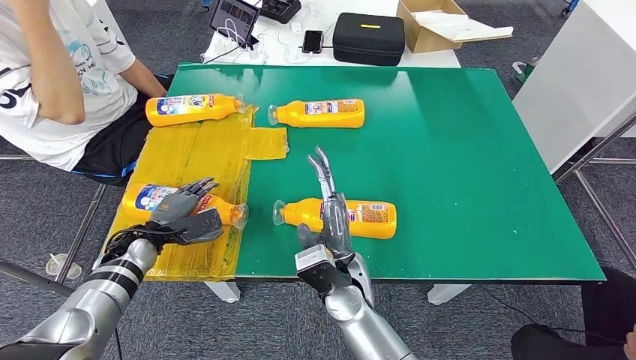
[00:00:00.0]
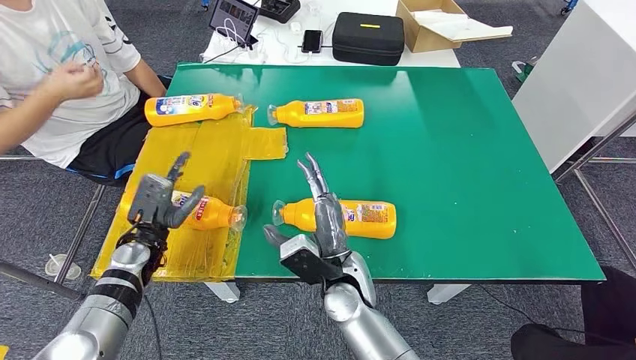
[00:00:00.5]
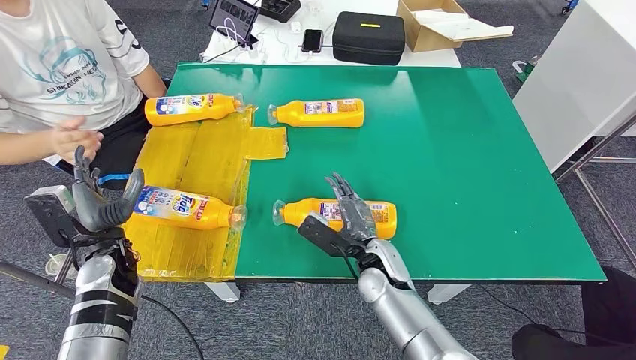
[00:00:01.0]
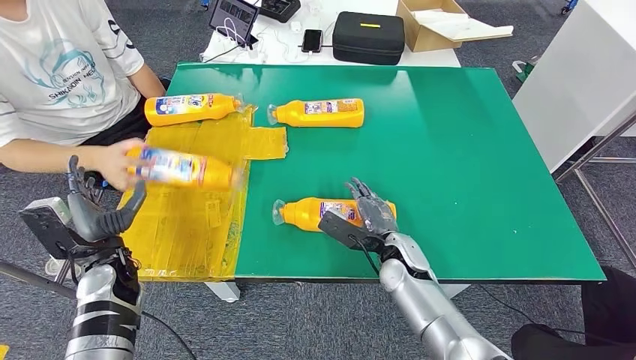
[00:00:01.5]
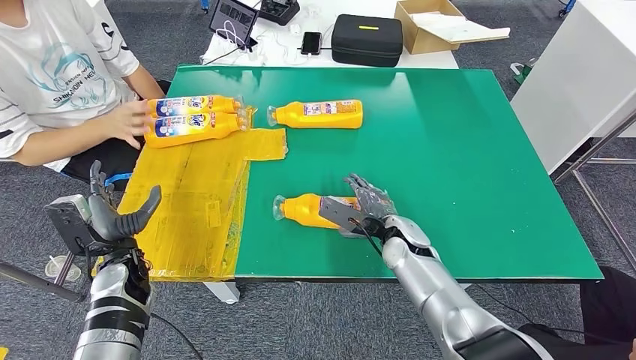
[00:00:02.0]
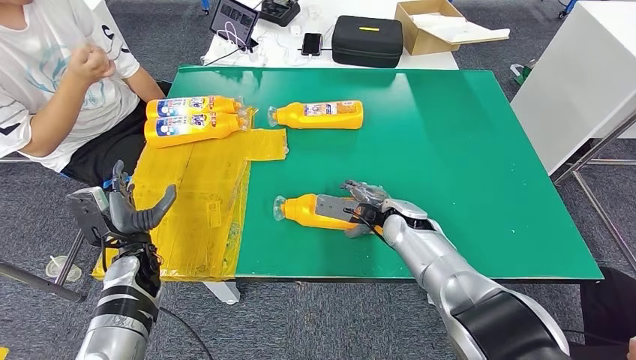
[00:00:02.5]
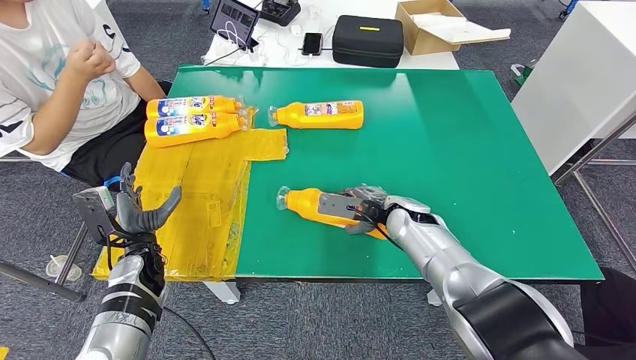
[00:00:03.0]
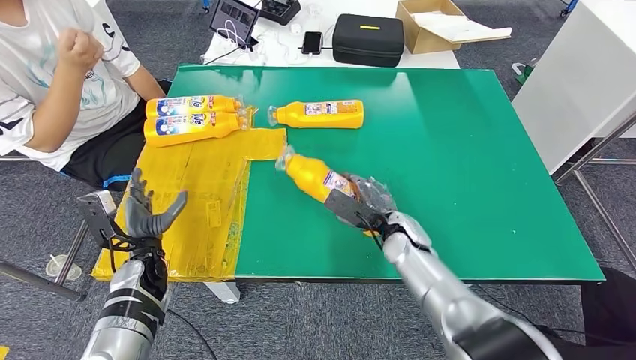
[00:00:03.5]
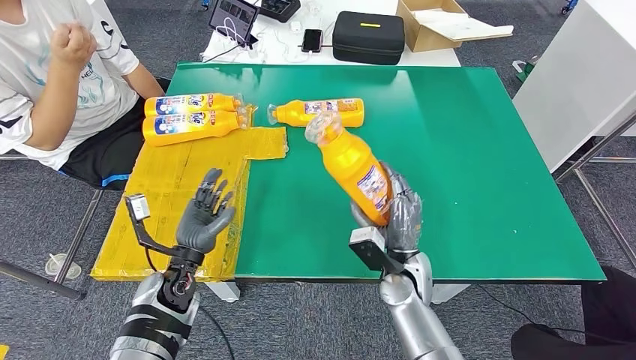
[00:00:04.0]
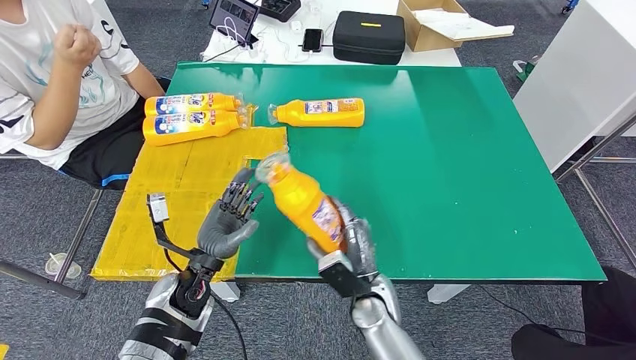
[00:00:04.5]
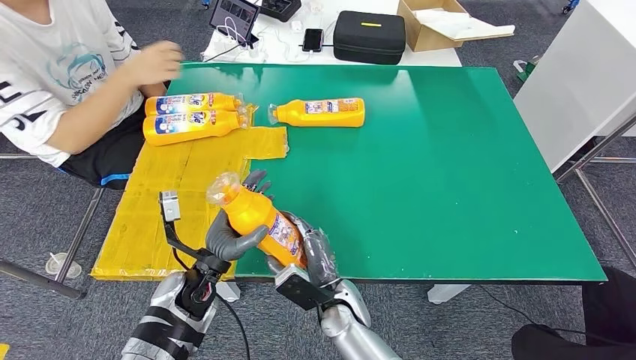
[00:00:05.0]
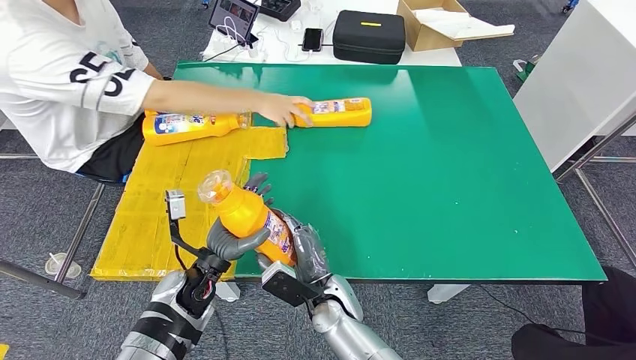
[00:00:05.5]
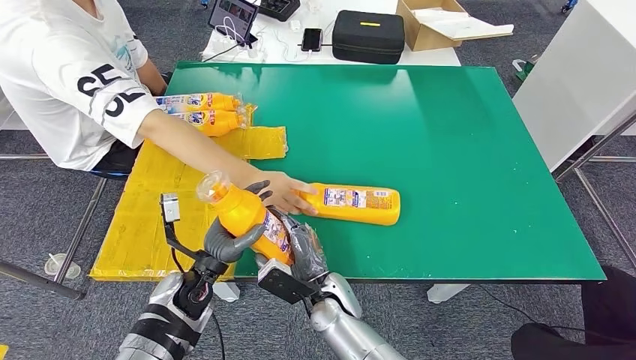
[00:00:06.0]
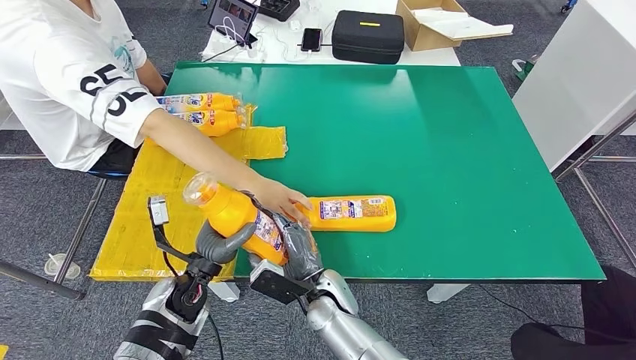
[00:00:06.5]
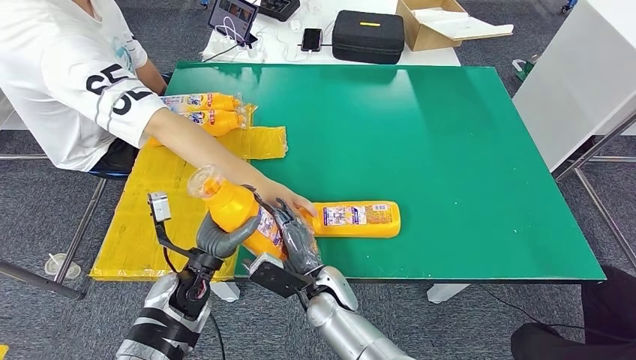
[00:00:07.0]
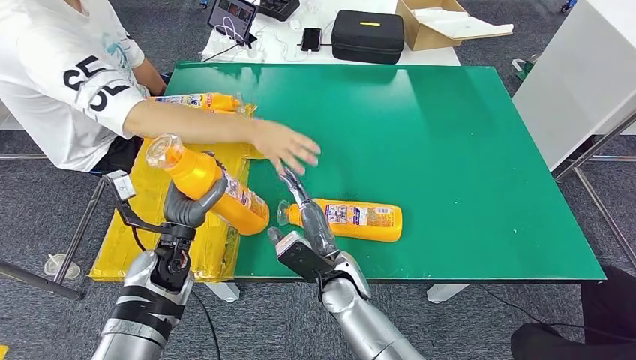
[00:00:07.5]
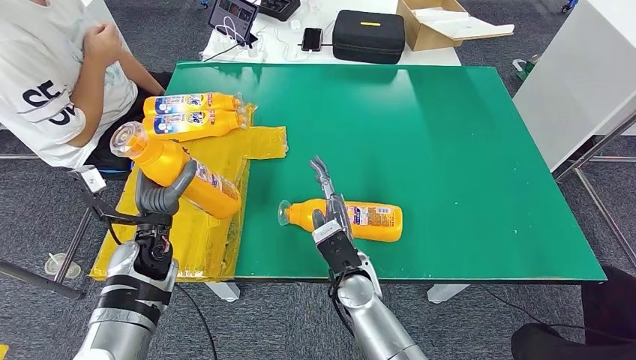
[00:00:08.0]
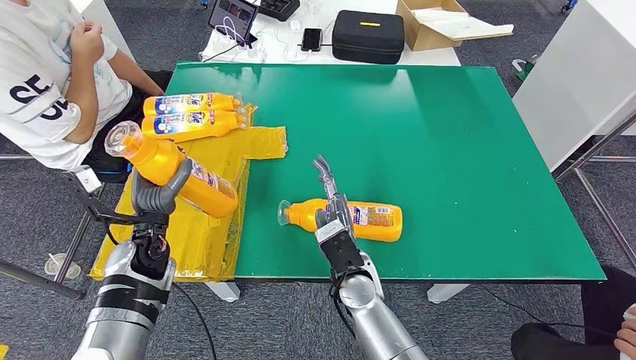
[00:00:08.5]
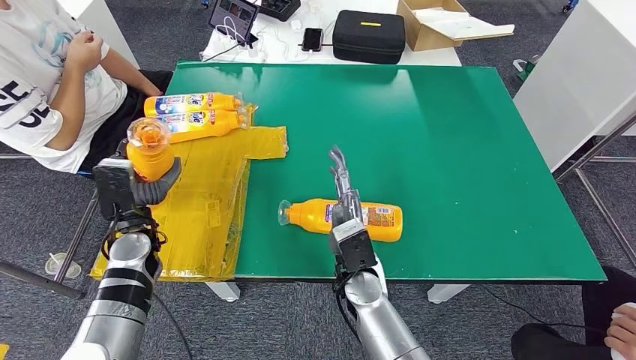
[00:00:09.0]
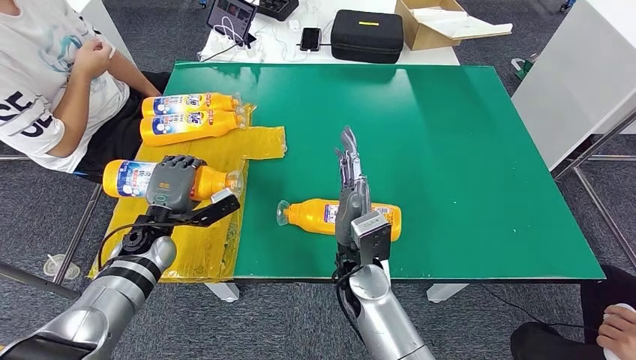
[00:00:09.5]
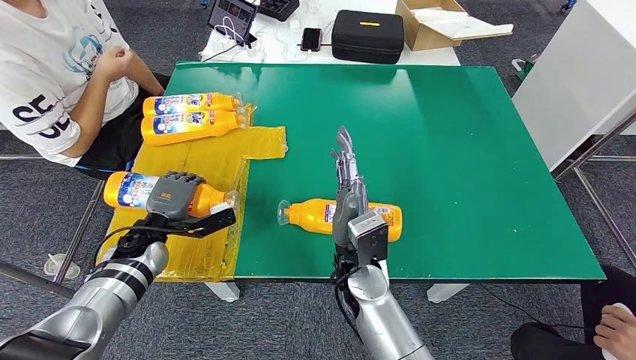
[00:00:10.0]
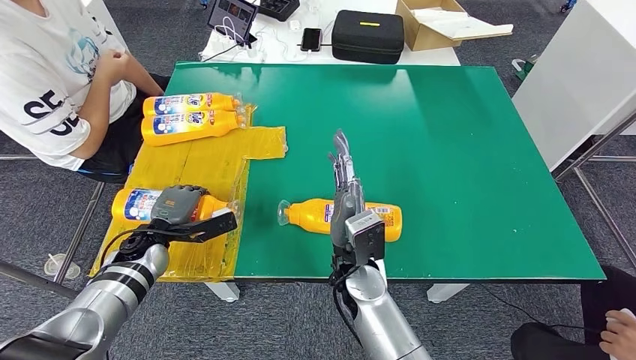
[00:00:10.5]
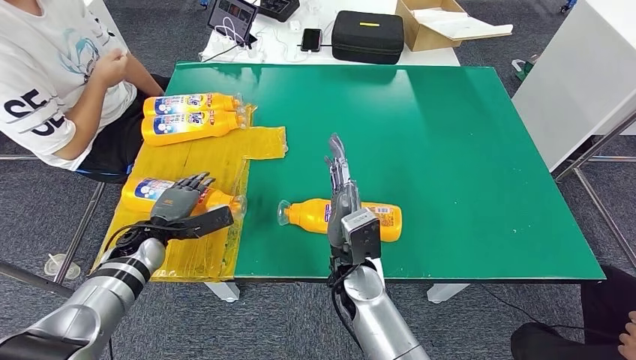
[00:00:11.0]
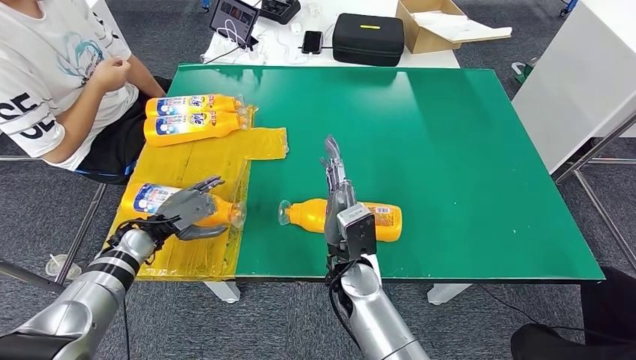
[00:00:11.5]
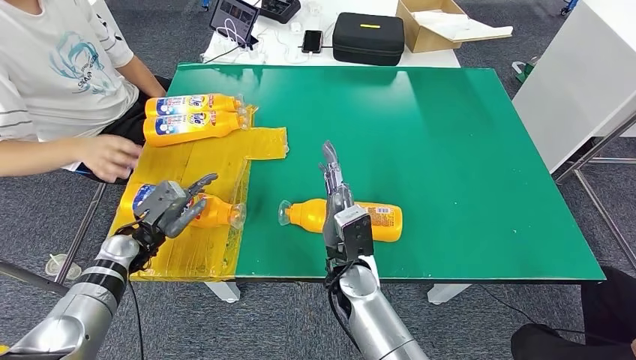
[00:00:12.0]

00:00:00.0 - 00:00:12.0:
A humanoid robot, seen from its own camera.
Step, 00:00:00.0 - 00:00:05.0: Pick up the fast-moving consumer goods bottle from the table.
Step, 00:00:05.5 - 00:00:09.5: Flip the fast-moving consumer goods bottle to the front side.
00:00:08.0 - 00:00:10.0: The left hand goes approximately 5 cm to the left.

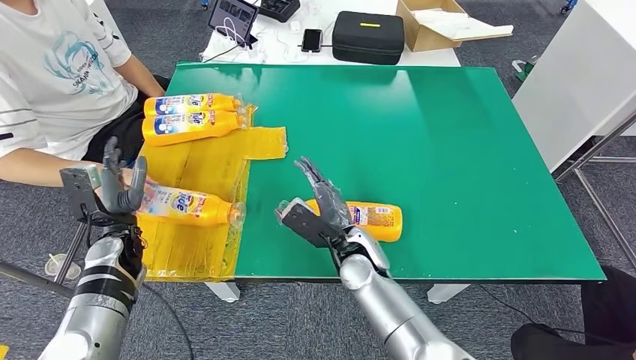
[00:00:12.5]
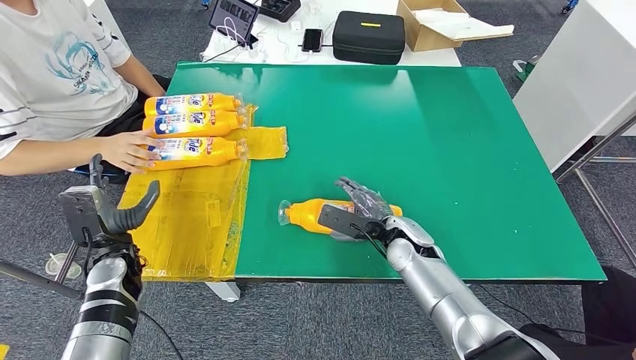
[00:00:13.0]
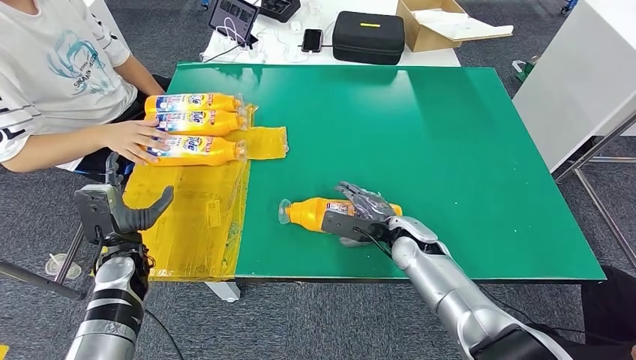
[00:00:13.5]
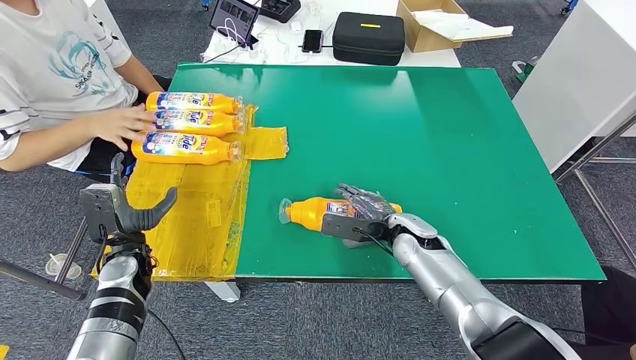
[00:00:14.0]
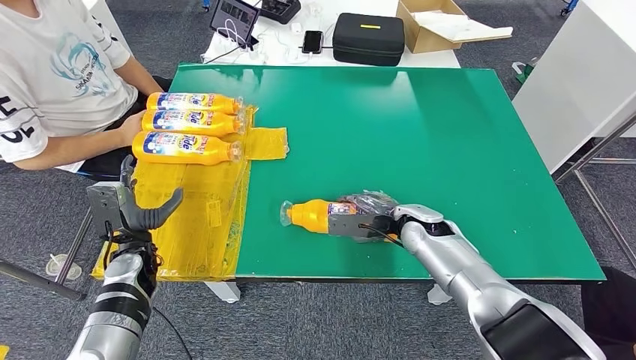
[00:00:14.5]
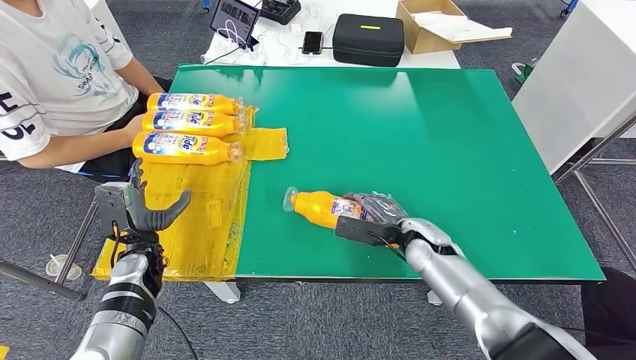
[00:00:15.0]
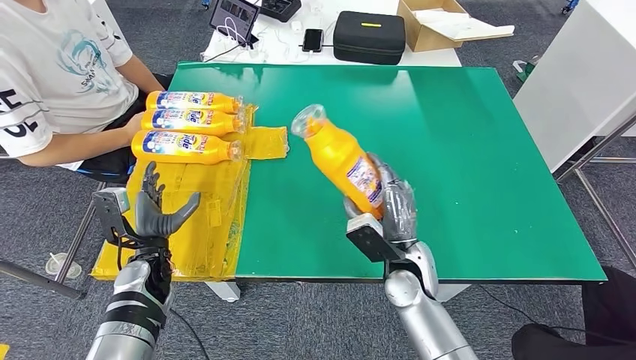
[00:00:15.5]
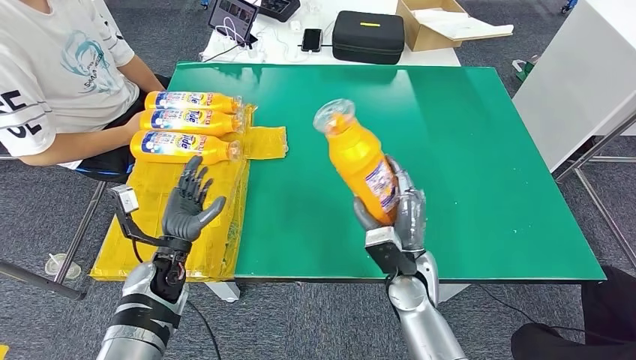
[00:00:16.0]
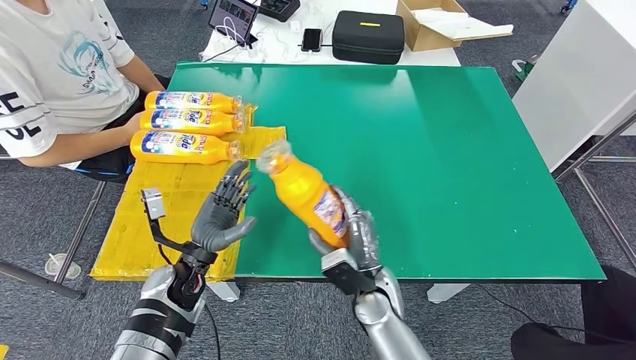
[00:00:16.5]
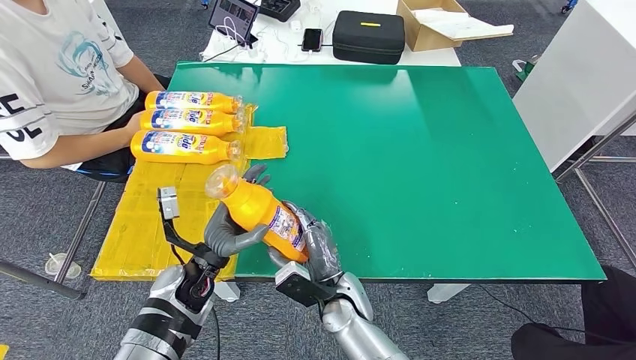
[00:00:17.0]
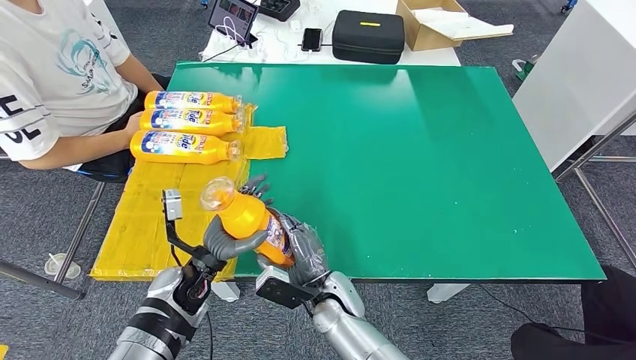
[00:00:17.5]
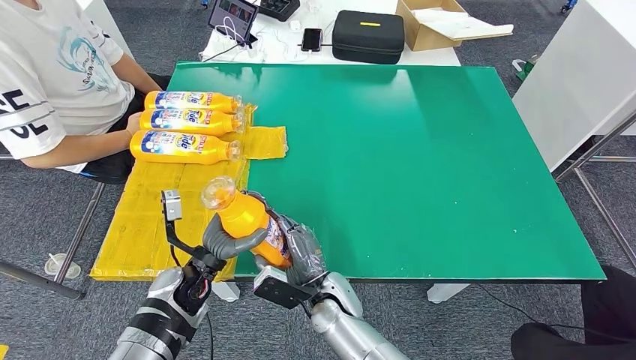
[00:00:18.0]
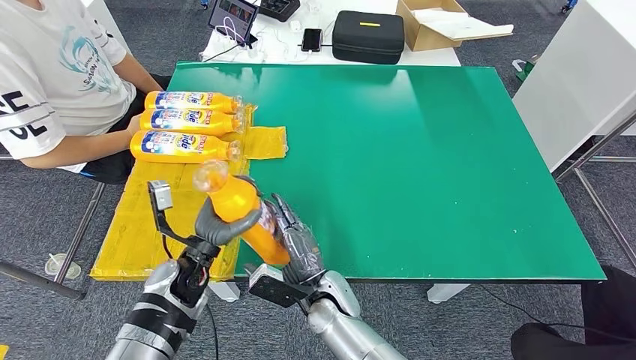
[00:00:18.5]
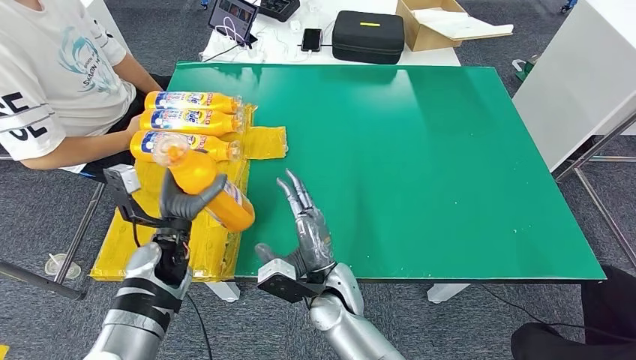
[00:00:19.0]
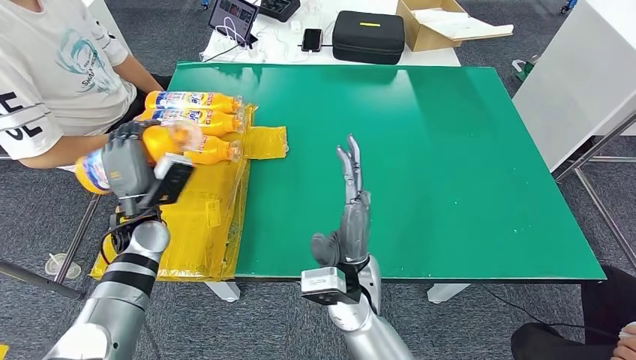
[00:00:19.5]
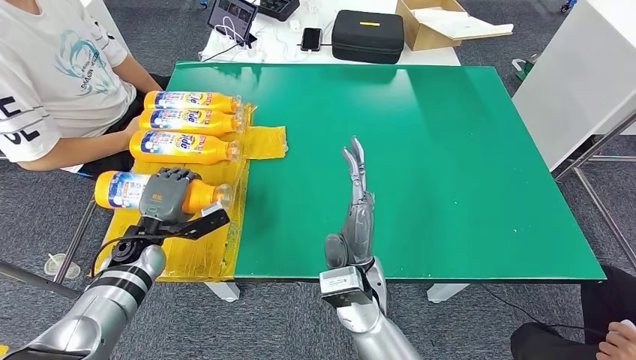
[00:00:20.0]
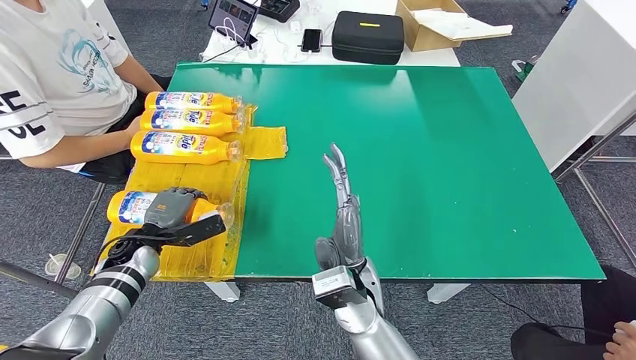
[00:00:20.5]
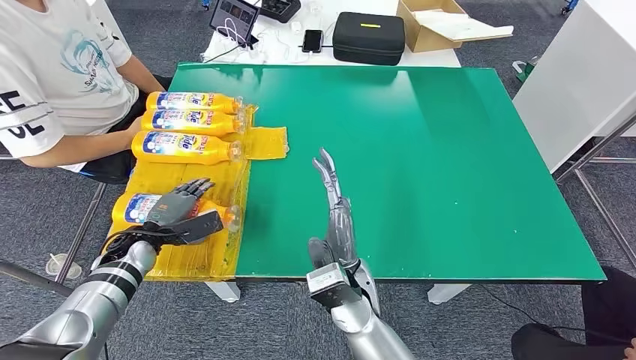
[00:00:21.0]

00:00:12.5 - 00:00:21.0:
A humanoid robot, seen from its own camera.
Step, 00:00:12.5 - 00:00:16.5: Pick up the fast-moving consumer goods bottle from the table.
Step, 00:00:17.5 - 00:00:20.5: Flip the fast-moving consumer goods bottle to the front side.
00:00:16.5 - 00:00:19.0: The right hand moves to the left, about 10 cm, while the left hand ends up roughly 5 cm from where it was.
00:00:19.0 - 00:00:21.0: The left hand travels to the left by approximately 10 cm; the right hand changes place by roughly 5 cm.
